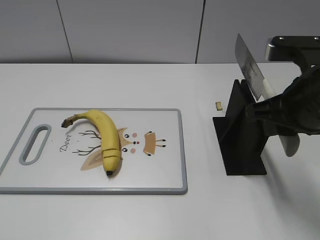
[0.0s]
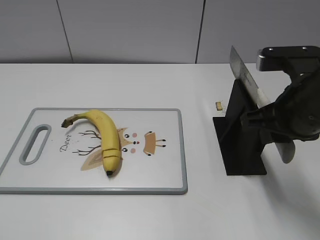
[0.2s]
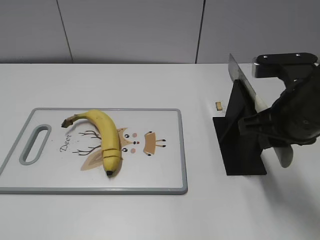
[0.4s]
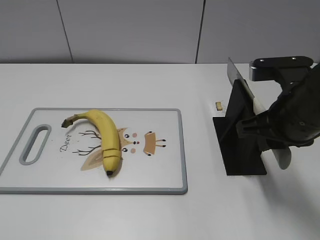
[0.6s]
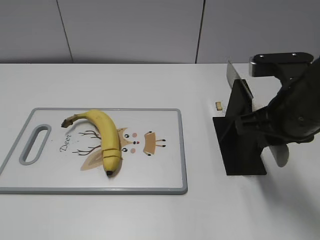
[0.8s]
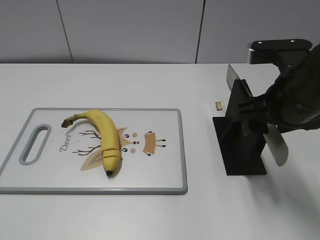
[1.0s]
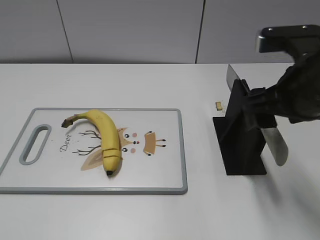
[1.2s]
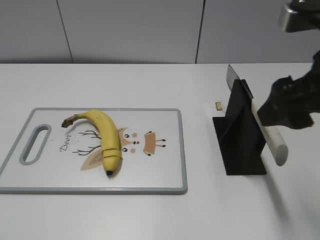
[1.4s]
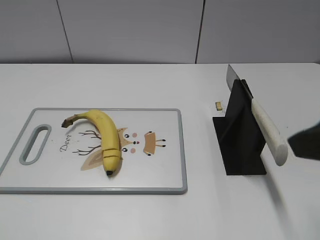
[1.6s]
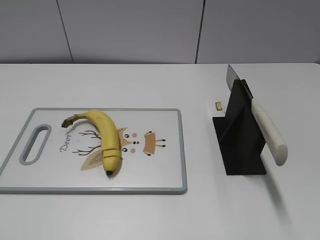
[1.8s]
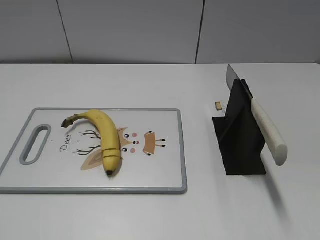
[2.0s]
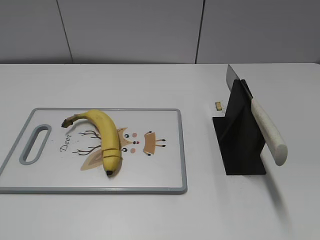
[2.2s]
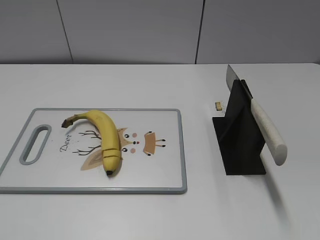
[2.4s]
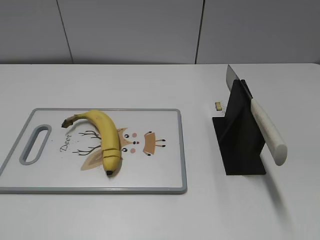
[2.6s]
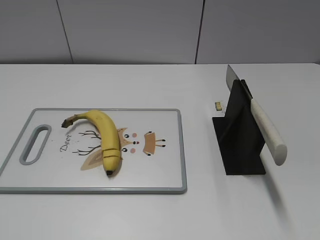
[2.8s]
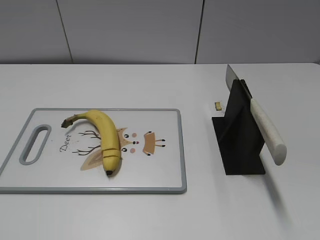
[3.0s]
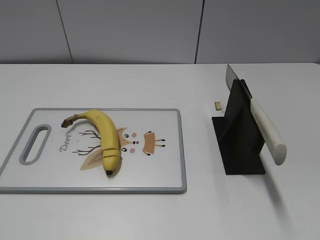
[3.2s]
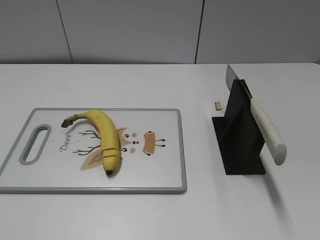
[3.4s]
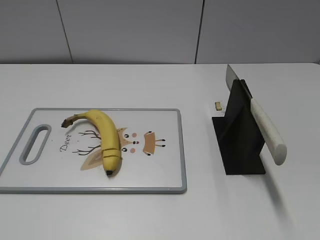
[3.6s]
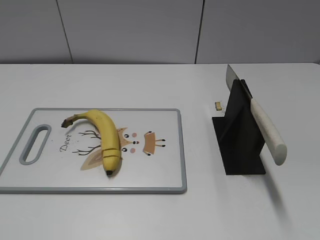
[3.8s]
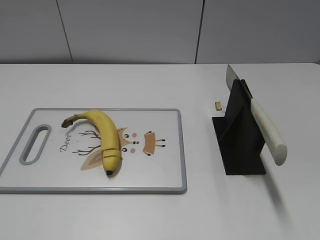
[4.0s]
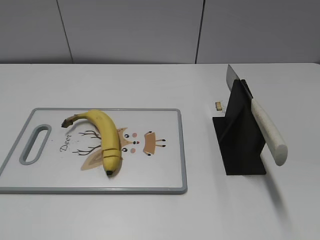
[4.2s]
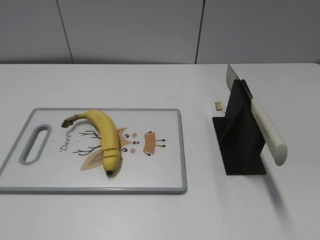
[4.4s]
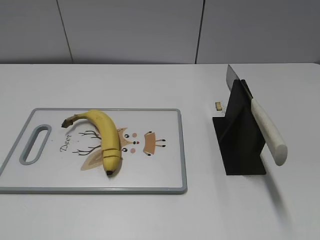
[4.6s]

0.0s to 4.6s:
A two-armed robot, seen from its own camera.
Task of the whole recording: cut banana.
Step, 0.0s to 4.6s: Place the knife on the storage rack with your right hand.
0.0s to 1.6s: The right gripper is displaced backward and upward by roughly 10 cm, and opens.
1.6s to 3.0s: The right gripper shifts about 15 cm backward and to the right.

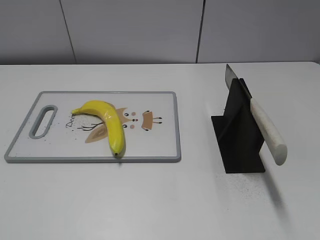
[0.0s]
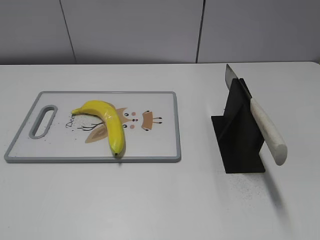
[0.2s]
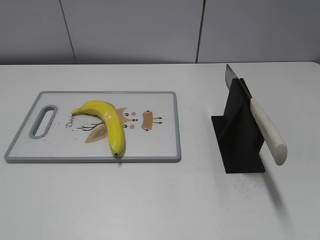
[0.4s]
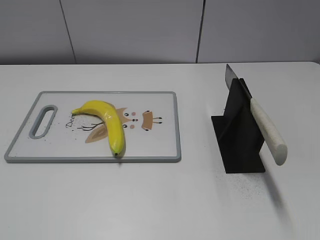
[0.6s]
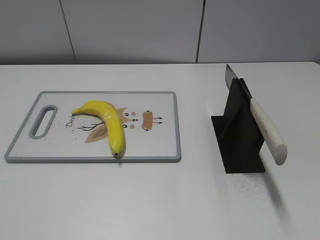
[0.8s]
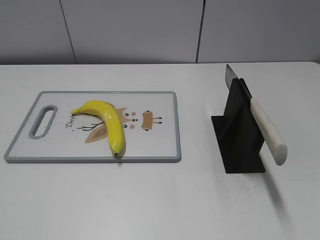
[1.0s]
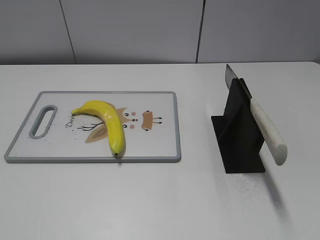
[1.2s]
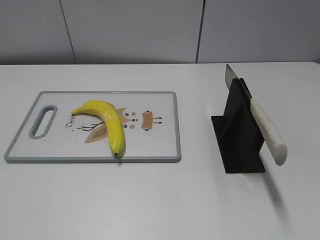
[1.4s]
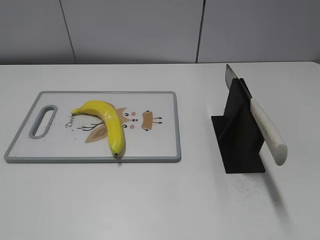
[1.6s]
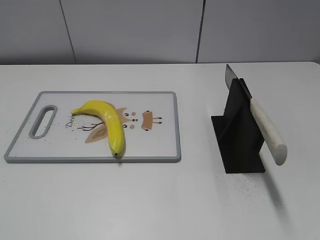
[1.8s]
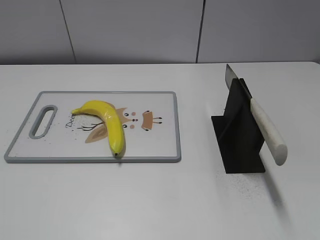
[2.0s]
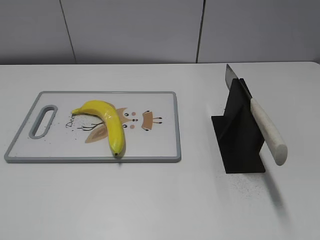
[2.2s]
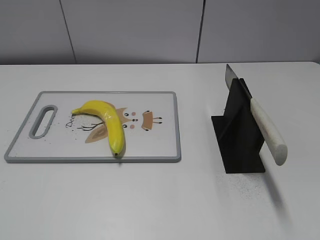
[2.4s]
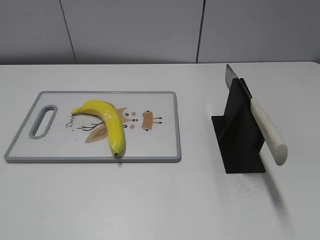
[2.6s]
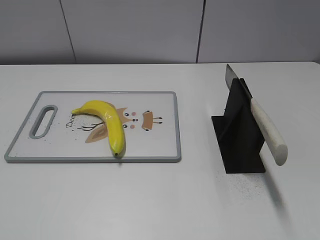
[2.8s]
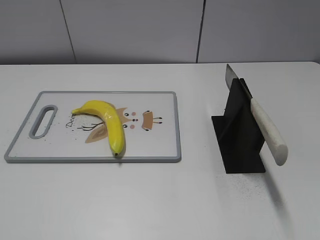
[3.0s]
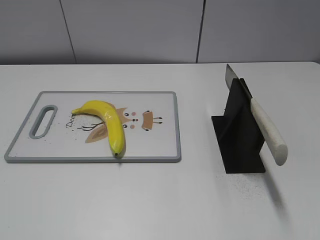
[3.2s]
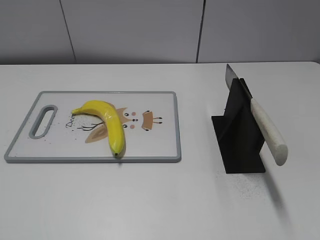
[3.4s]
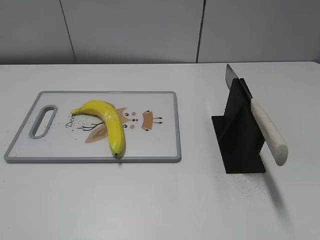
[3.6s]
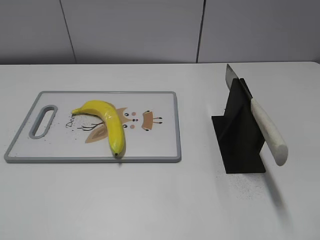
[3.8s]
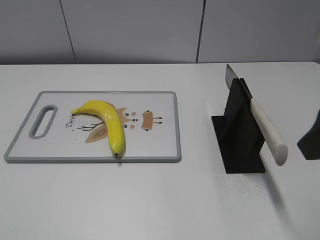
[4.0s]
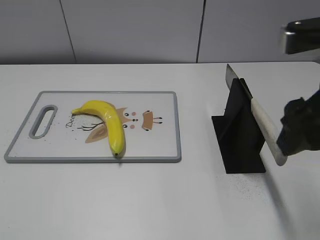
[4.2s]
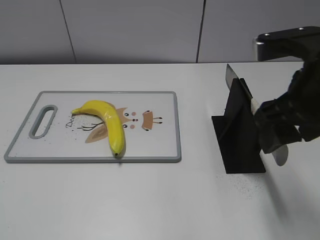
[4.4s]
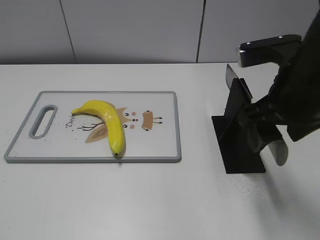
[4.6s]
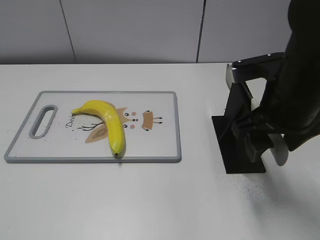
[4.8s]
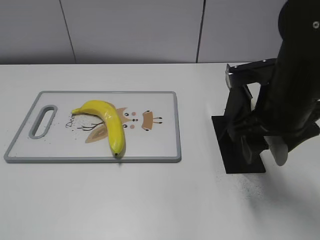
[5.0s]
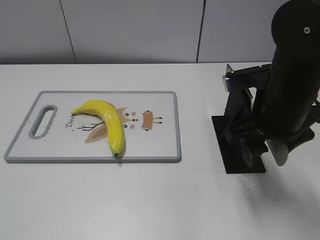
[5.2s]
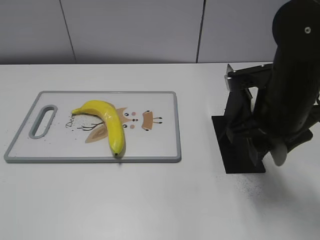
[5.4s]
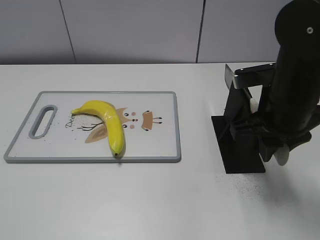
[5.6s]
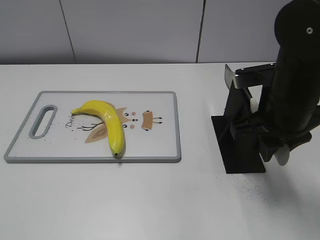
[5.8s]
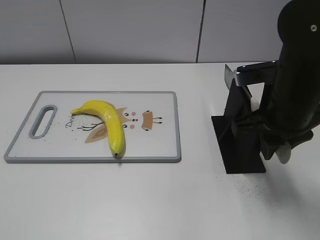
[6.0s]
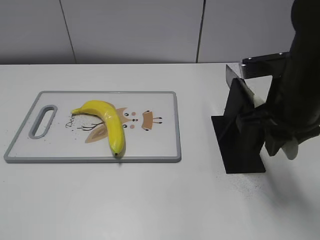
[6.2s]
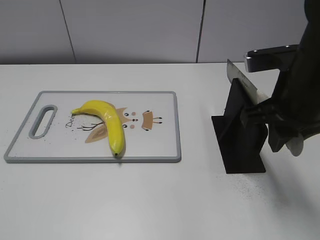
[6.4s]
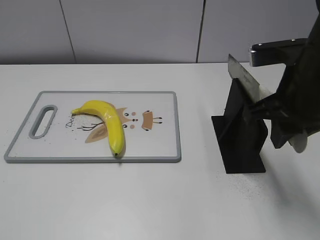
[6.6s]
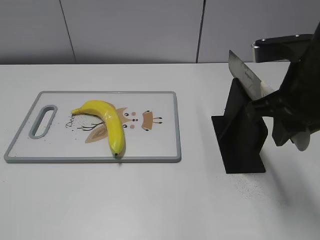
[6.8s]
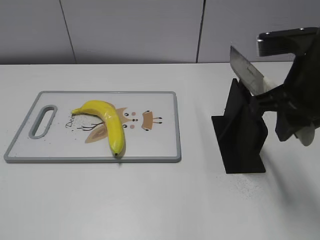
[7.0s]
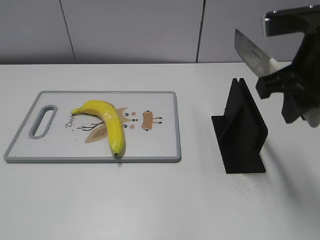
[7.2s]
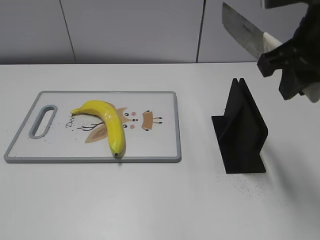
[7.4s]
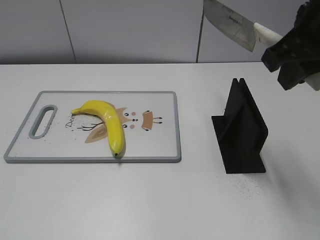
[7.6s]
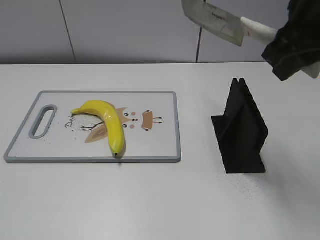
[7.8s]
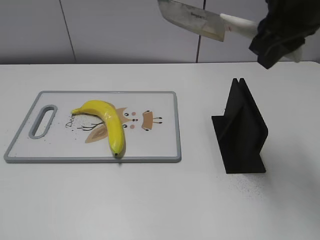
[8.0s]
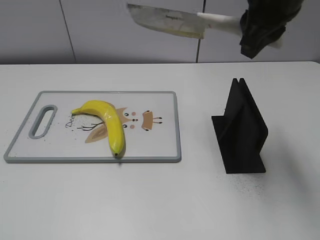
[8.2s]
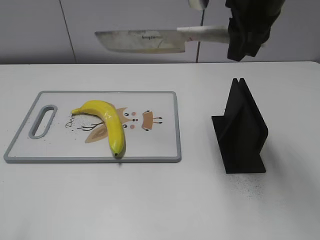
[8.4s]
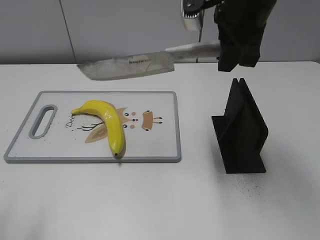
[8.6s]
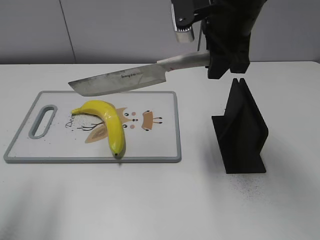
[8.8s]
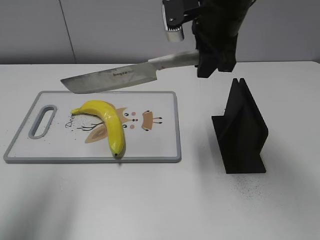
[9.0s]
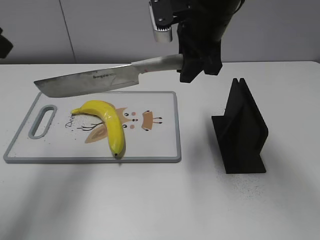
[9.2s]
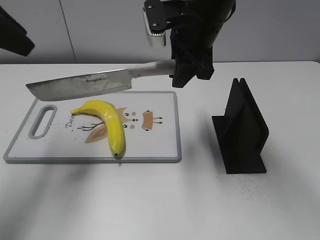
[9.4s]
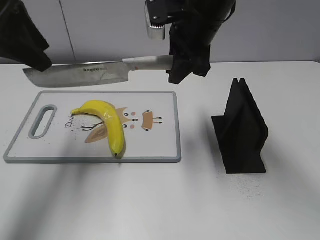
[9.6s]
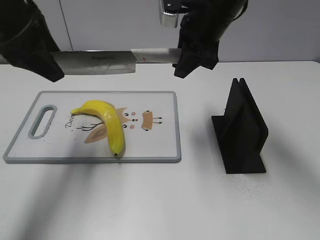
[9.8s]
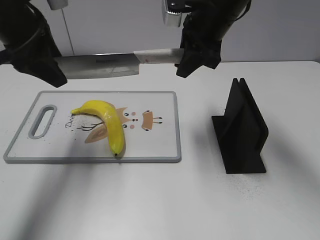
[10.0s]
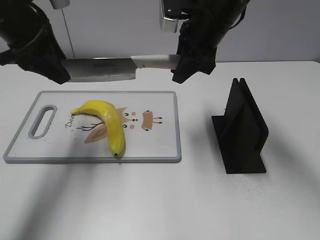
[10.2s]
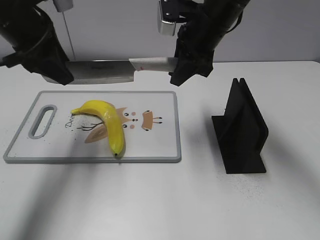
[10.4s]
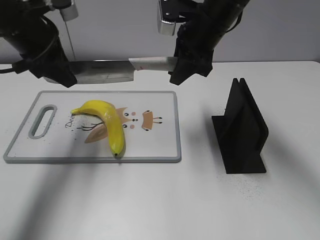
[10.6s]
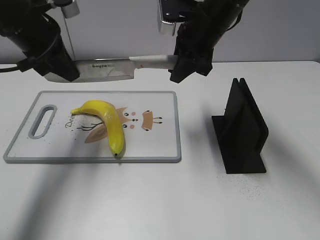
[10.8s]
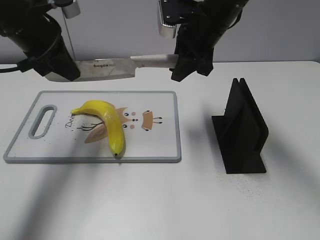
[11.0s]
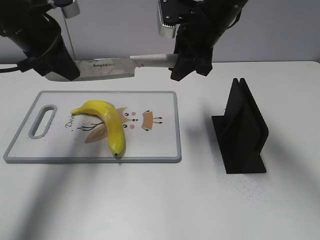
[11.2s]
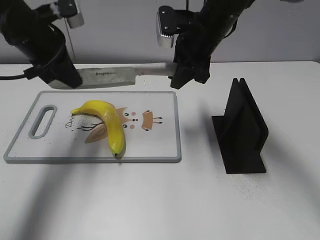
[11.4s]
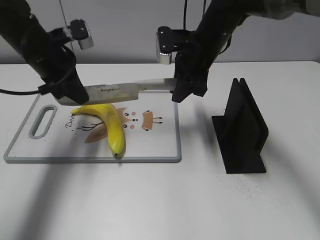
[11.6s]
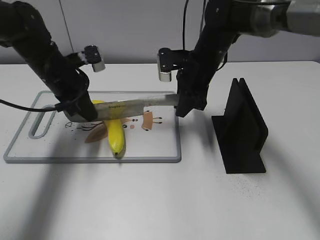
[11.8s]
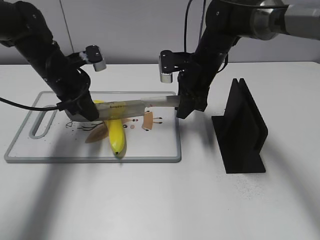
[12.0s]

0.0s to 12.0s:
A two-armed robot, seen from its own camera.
Task of the whole recording: cut plastic banana.
Step, 0.0s to 7.2s: Grab the knife handle with your right hand.
3.0s to 4.4s: The right gripper is displaced forward and to the left by some 20 cm.
4.4s to 6.0s: The right gripper heads downward, covering roughly 5 cm, and closes.
6.0s to 7.6s: The right gripper shifts roughly 10 cm upward.
7.6s to 9.0s: The right gripper is displaced forward and to the left by about 15 cm. The left gripper shifts about 25 cm forward and upward.
9.0s to 10.4s: The right gripper moves some 5 cm, while the left gripper shifts some 20 cm forward, downward and to the right.
10.4s to 12.0s: The two grippers go some 10 cm downward. The left gripper closes its fingers.

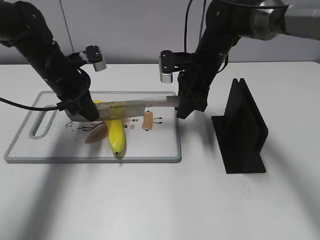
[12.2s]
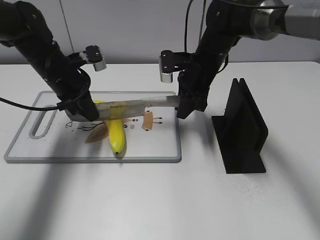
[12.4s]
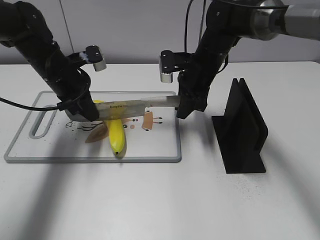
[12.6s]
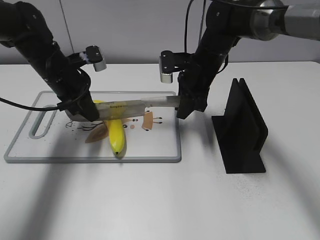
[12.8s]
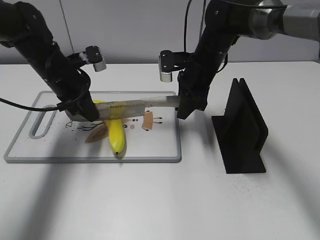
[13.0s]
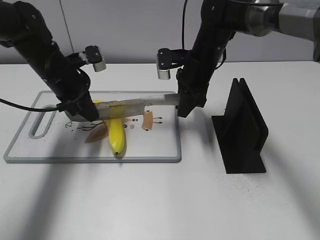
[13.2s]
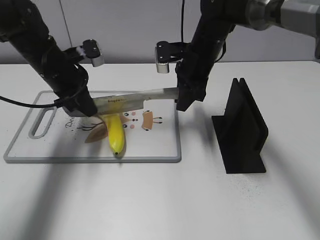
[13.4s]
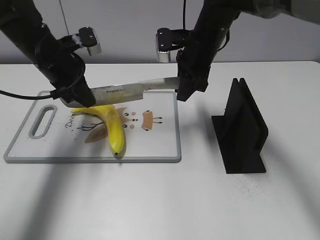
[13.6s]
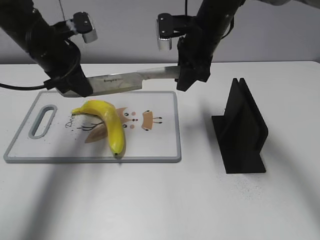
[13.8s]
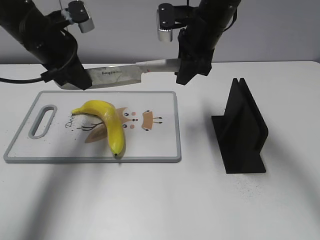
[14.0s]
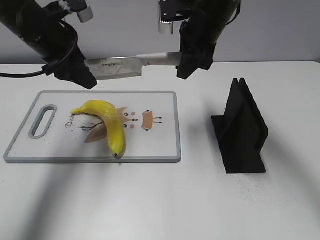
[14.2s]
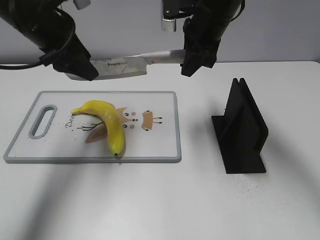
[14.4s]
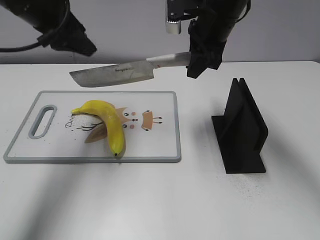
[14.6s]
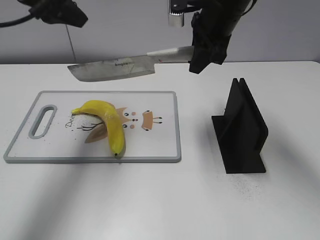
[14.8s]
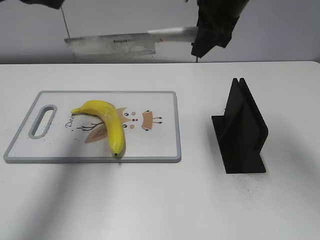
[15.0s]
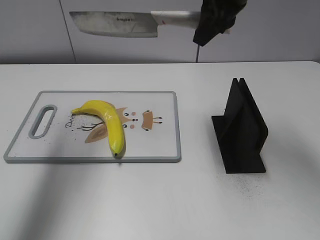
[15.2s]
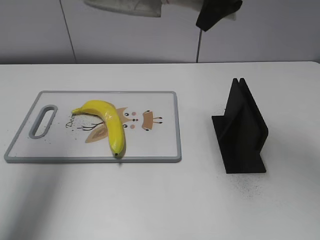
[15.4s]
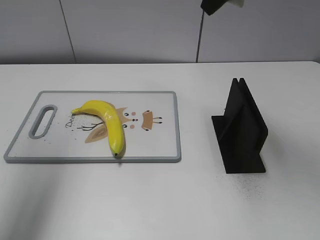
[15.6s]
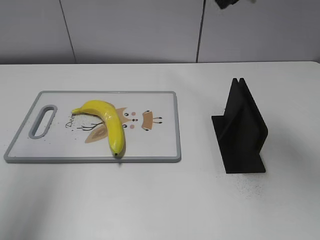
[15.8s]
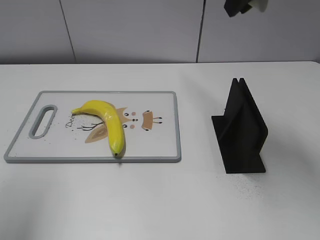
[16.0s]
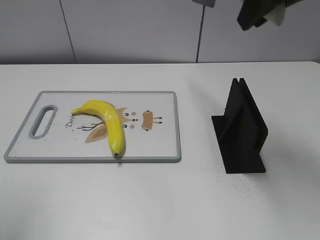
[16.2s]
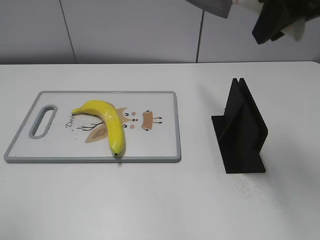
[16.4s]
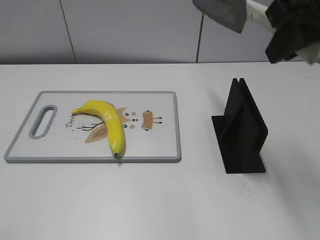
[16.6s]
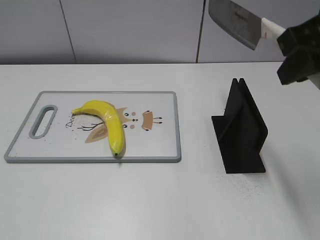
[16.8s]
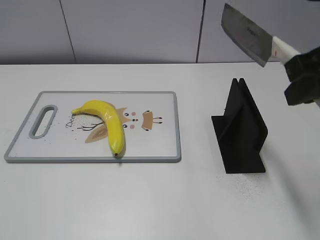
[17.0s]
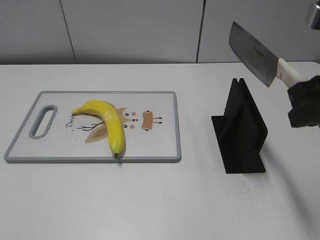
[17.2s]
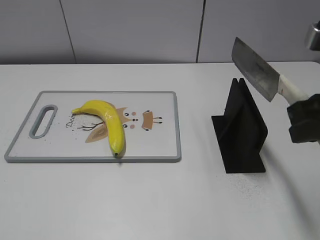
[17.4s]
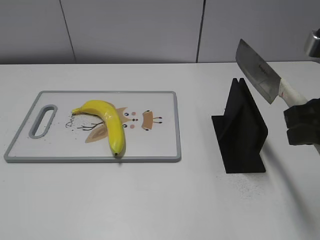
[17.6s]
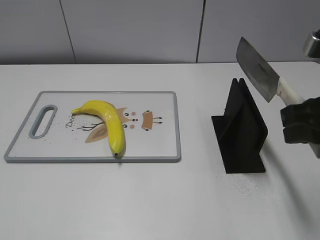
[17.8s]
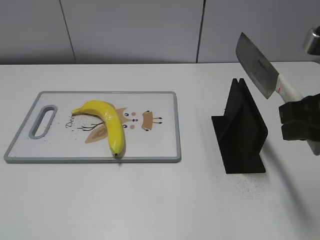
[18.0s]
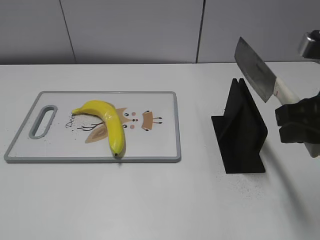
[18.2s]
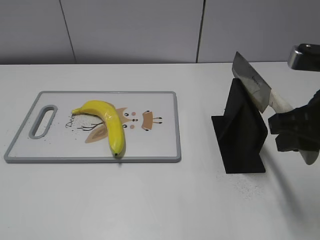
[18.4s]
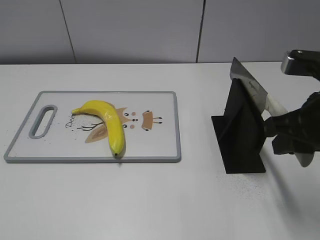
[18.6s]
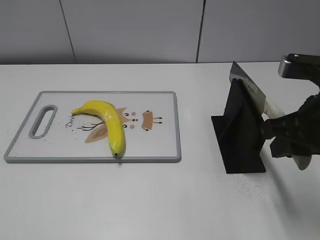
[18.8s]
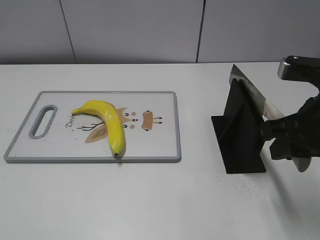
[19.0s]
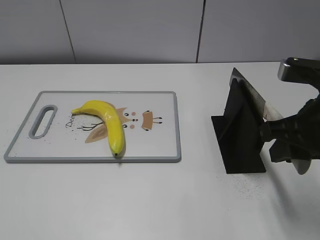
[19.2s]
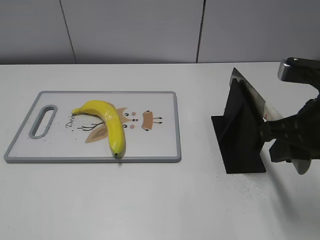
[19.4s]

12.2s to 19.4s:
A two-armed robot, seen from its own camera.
Task of the whole recording: cut plastic banana.
Step, 13.8s to 16.2s: Cut the banana with your right hand.
Step, 16.4s to 17.6s: Secure the blade with your left hand.
12.2s to 13.6s: The grippers stay close to where they were, moving slightly.
13.6s to 15.0s: The left gripper travels upward by some 15 cm, and opens its fingers, while the right gripper heads upward, covering roughly 10 cm.
15.0s to 16.6s: The left gripper shifts approximately 25 cm backward. The right gripper moves backward, to the right and upward, some 15 cm.
16.6s to 18.0s: The right gripper shifts about 10 cm downward and backward.
18.0s to 19.4s: The grippers make only small movements.
